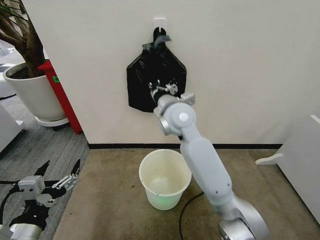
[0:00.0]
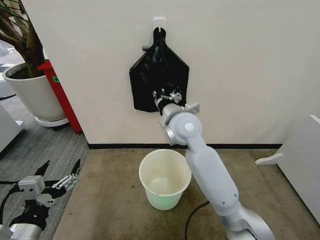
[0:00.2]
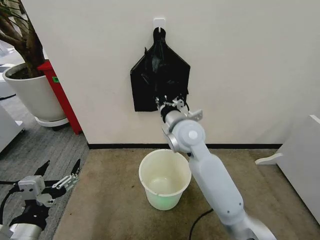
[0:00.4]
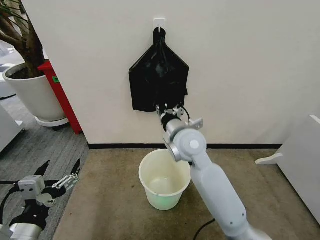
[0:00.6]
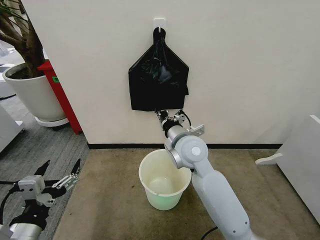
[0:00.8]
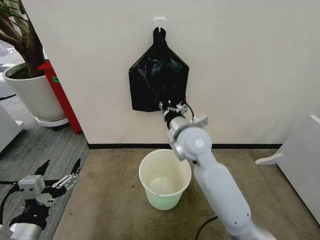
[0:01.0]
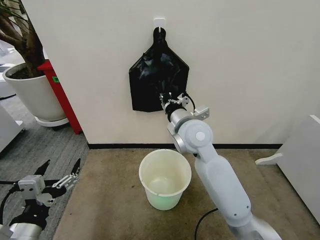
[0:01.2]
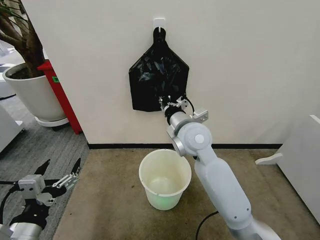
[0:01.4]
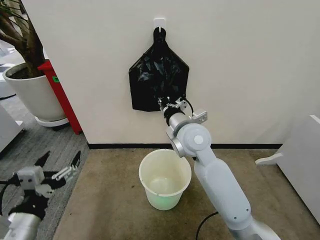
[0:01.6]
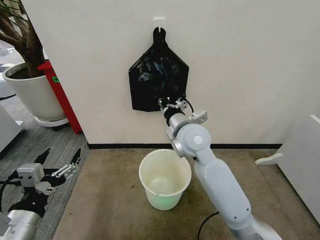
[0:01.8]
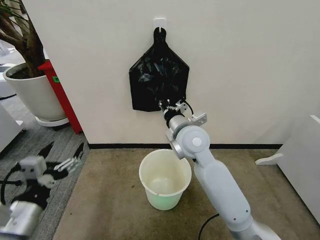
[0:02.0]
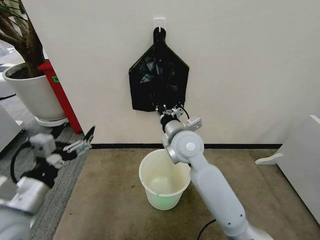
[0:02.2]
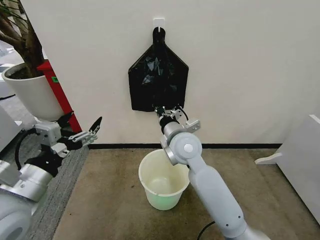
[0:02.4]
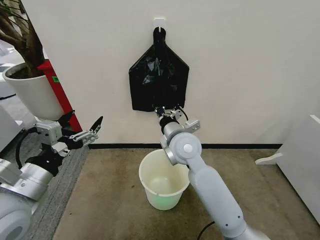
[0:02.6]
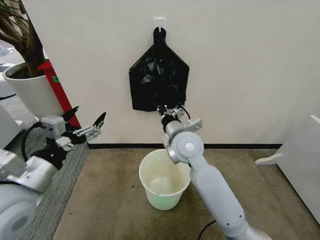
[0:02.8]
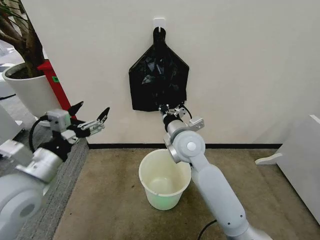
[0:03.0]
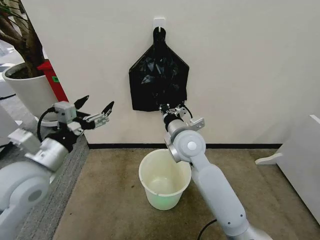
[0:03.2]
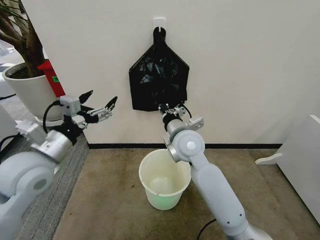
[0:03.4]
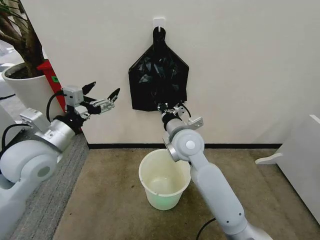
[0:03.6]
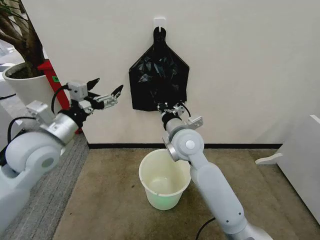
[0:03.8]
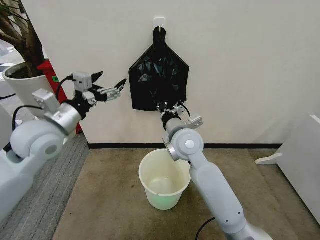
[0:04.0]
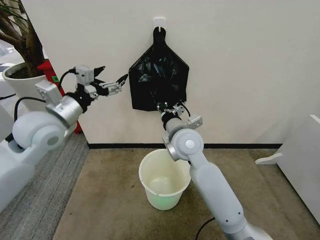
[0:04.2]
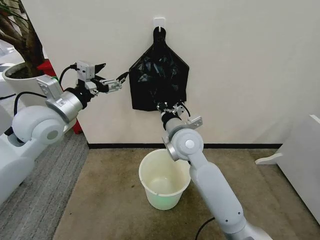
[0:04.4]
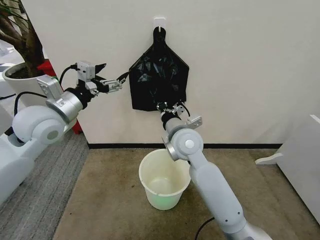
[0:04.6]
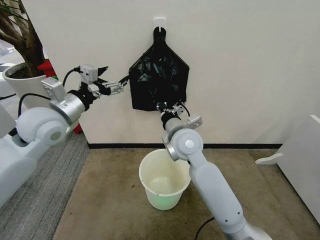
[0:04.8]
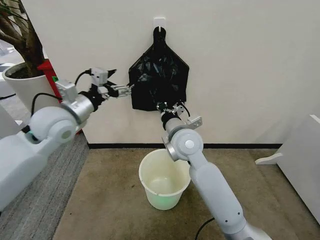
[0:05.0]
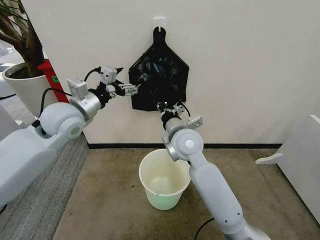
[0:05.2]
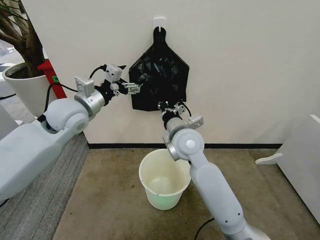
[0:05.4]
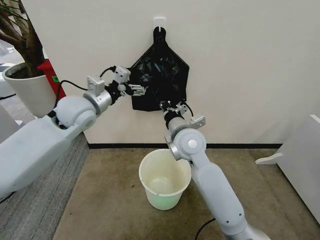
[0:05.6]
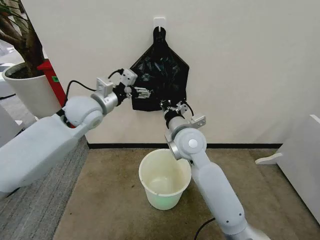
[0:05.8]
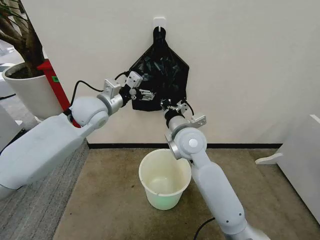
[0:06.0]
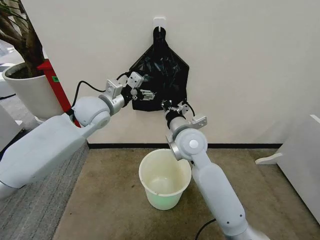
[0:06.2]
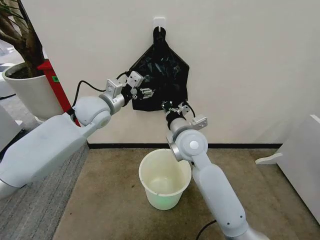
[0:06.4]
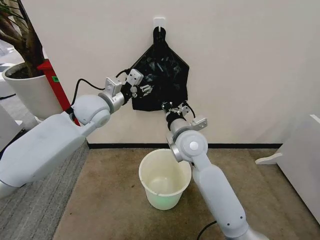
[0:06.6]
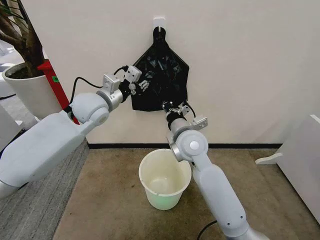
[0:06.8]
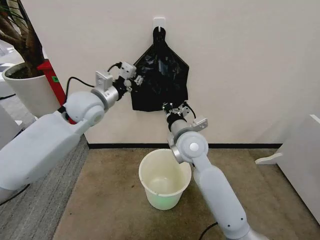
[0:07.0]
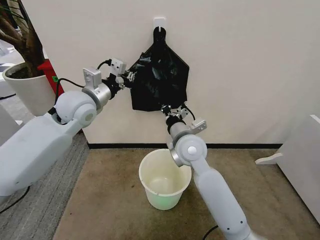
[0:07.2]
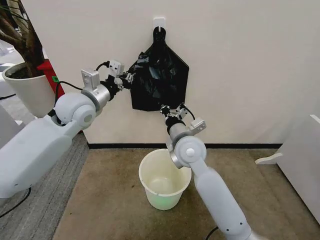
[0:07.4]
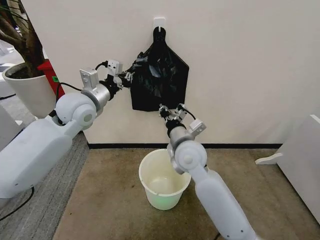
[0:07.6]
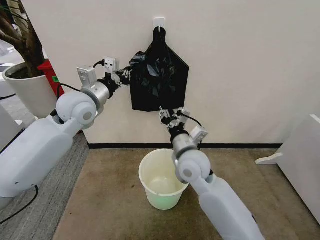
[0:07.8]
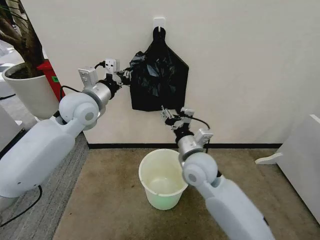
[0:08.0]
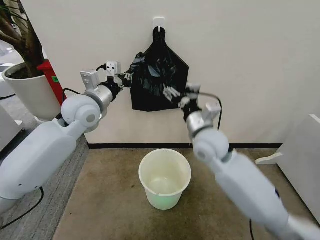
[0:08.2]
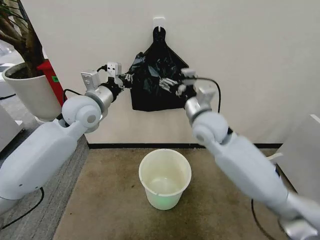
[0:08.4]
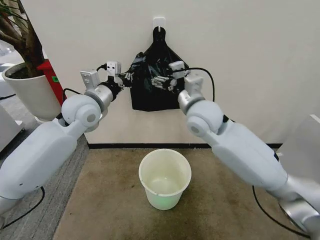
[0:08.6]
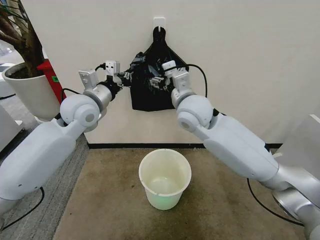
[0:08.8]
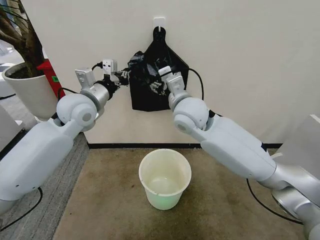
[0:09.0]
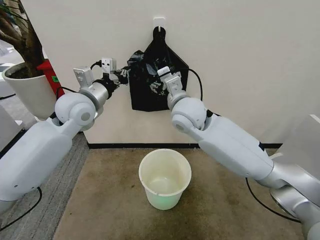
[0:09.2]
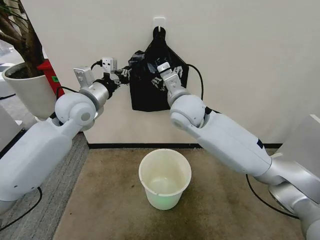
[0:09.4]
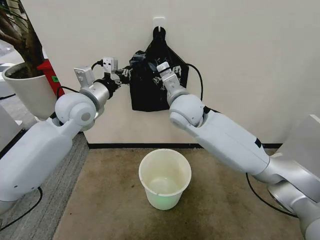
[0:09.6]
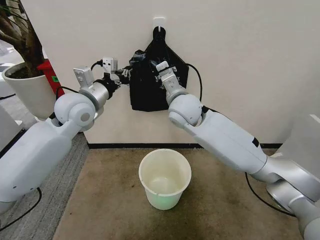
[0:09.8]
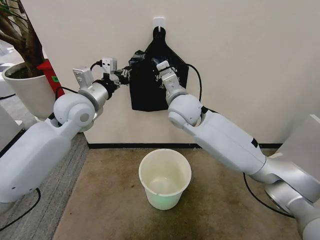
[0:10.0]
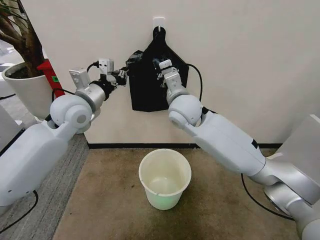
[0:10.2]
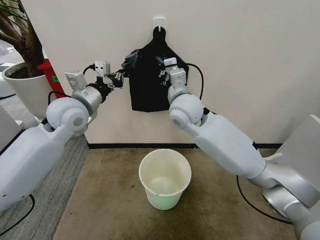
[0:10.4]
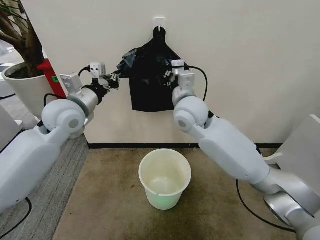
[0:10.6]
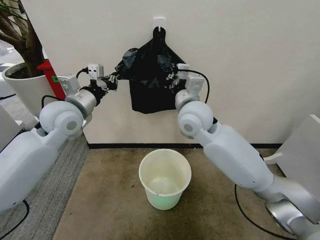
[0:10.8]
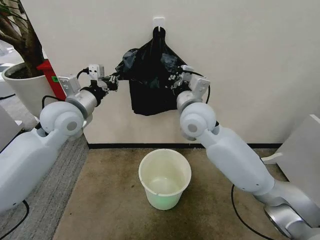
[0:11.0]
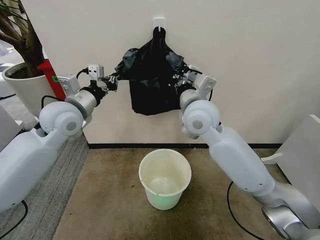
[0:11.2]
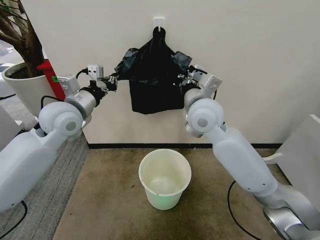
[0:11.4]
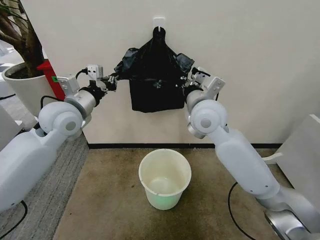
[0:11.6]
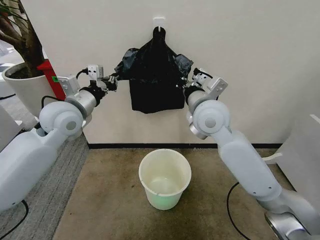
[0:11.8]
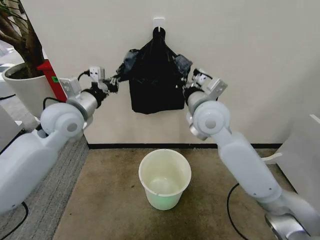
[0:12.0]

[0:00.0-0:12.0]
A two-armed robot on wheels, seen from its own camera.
Task of the whole recording: Place the garbage bag over the trash bin.
0:00.0 to 0:01.6: The right gripper shifts by about 5 cm.
0:01.6 to 0:03.0: The left gripper goes approximately 15 cm forward and upward.
0:03.0 to 0:04.4: The left gripper travels forward and upward by about 15 cm.
0:04.4 to 0:06.0: The left gripper goes about 10 cm forward and to the right.
0:06.0 to 0:07.6: The left gripper closes its fingers.
0:07.6 to 0:09.0: The right gripper is displaced upward and forward by roughly 10 cm, and opens.
0:09.0 to 0:10.4: The right gripper closes its fingers.
0:10.4 to 0:12.0: The right gripper heads to the right, covering roughly 5 cm.

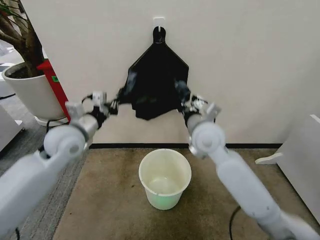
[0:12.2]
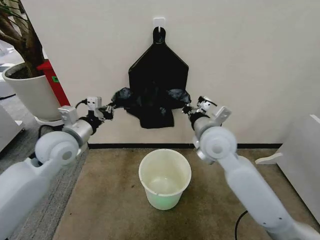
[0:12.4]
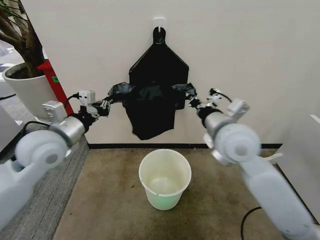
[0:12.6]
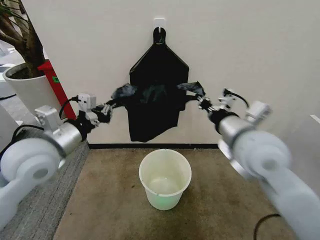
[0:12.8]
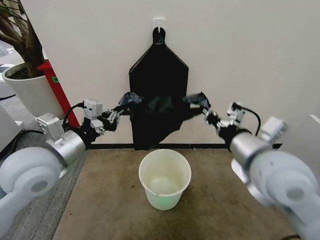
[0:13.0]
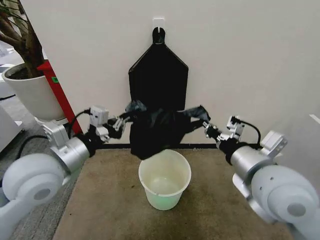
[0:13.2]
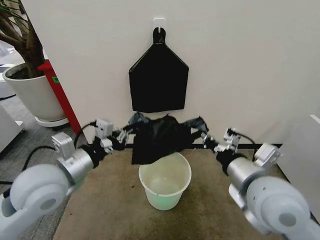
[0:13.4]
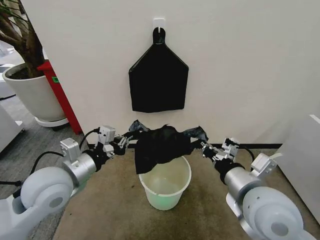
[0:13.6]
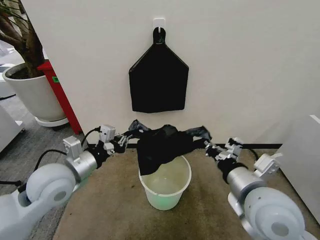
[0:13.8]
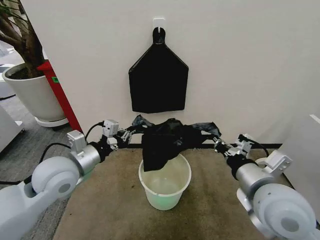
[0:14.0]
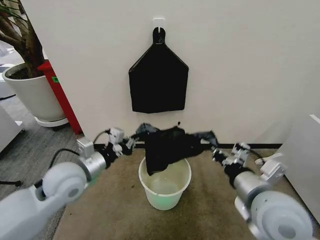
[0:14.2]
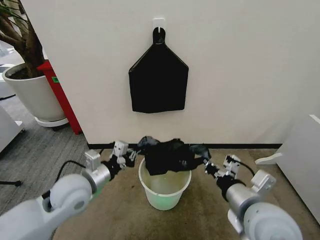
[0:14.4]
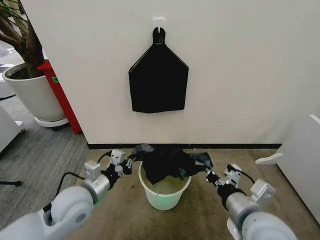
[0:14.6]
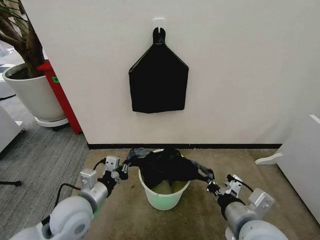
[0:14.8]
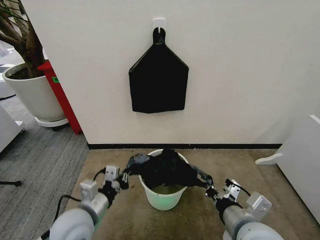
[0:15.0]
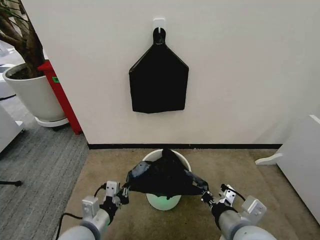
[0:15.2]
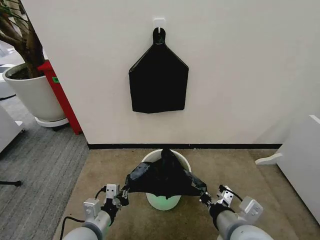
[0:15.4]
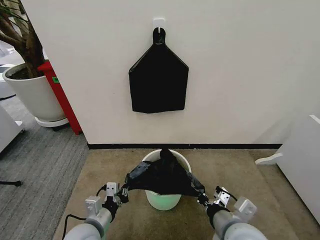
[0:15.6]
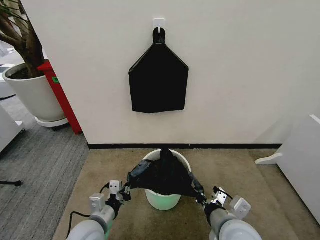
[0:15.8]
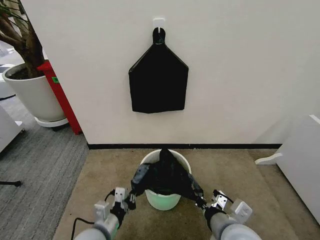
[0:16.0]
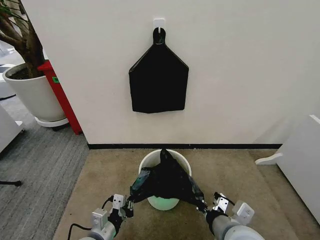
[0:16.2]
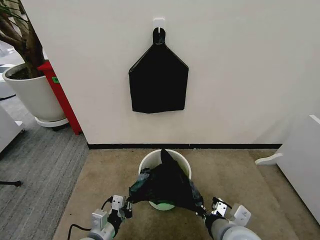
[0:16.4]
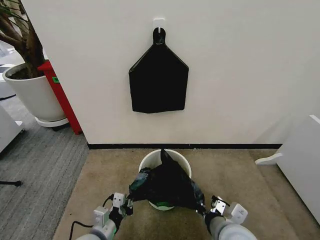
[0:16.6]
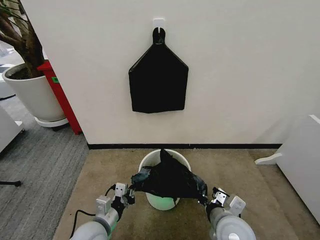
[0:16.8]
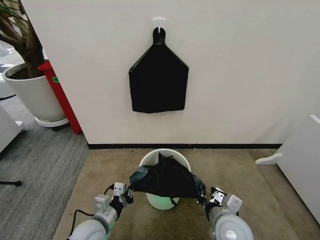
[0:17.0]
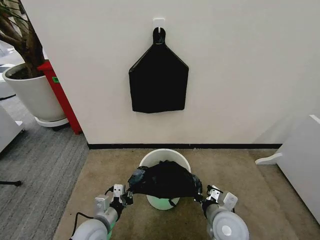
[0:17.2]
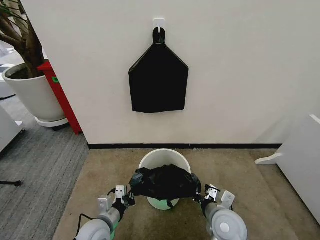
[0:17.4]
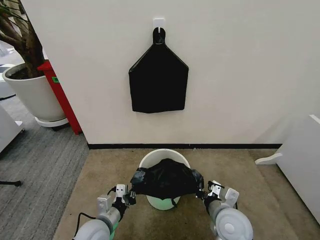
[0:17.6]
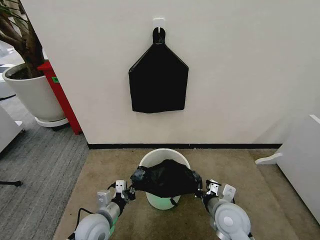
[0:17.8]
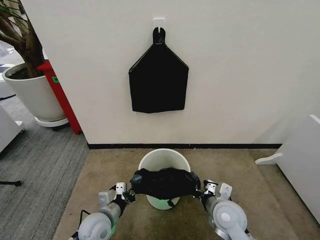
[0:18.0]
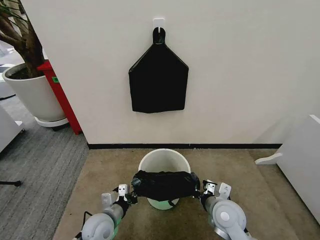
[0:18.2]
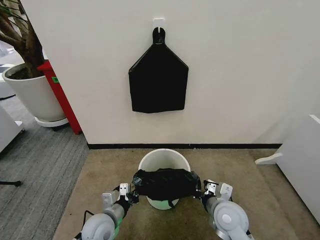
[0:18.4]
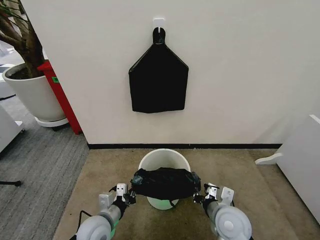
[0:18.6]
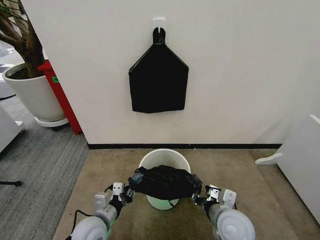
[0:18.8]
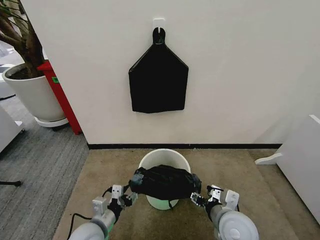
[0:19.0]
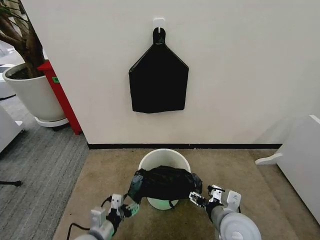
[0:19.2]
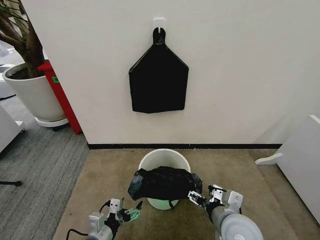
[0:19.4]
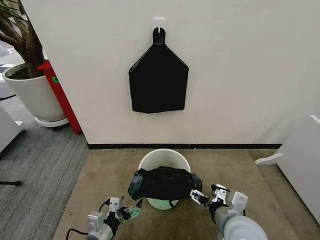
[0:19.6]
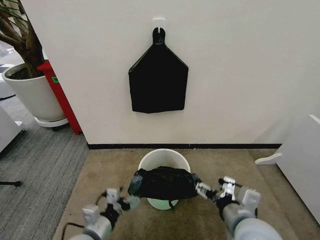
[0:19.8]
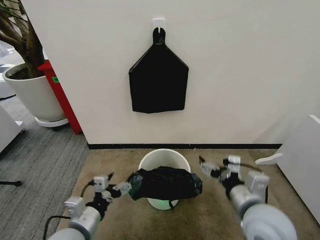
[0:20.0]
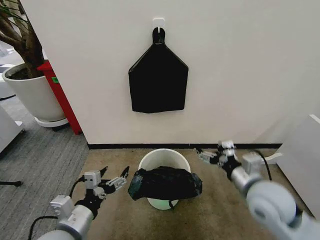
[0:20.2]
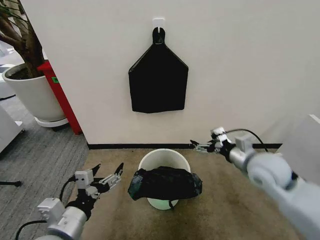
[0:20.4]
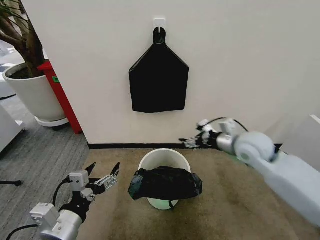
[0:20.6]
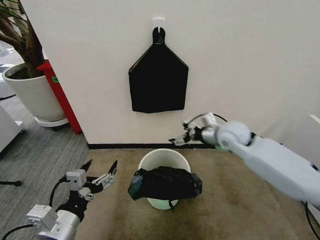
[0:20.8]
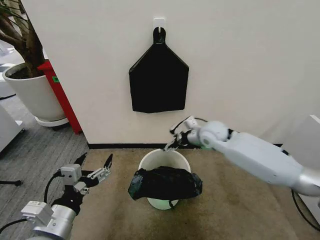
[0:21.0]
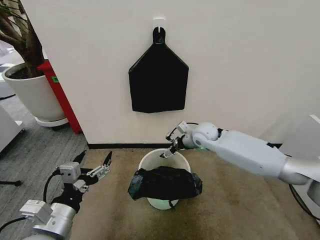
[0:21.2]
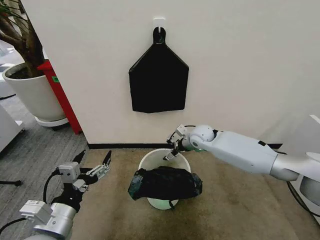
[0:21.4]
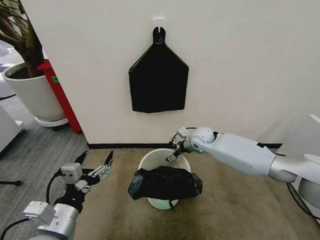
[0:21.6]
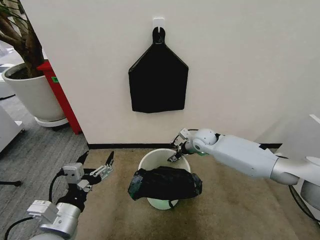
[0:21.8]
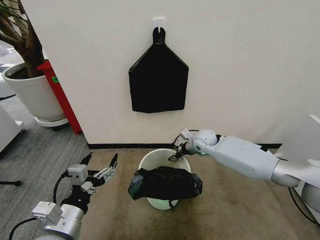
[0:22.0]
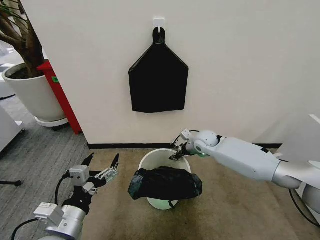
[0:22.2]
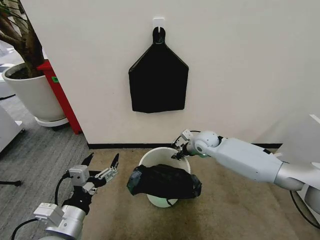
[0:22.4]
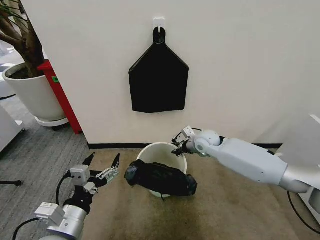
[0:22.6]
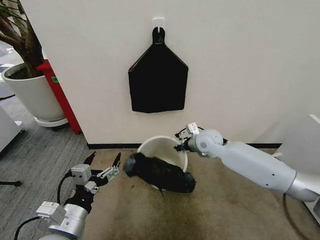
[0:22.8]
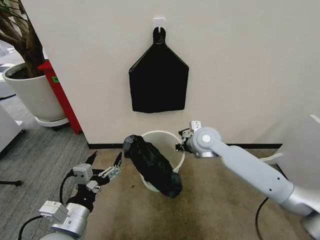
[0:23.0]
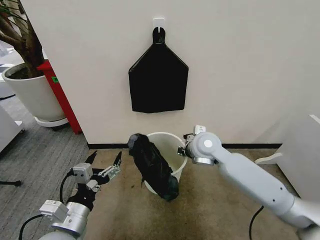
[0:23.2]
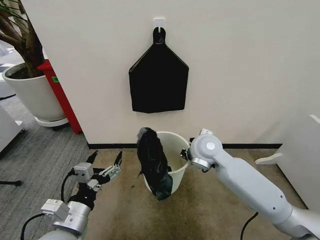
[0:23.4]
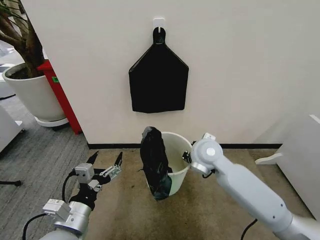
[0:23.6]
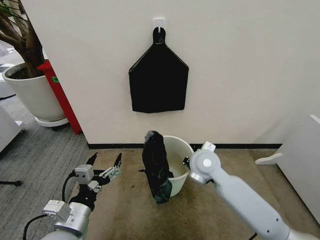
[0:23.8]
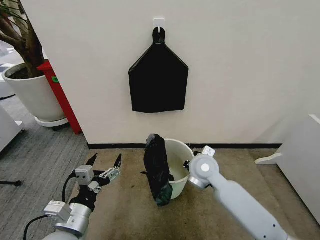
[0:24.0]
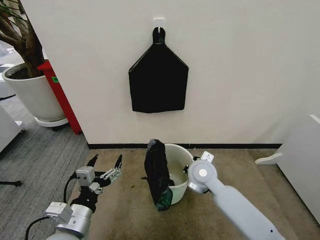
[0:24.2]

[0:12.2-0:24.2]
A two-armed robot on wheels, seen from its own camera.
Task of the whole recording: Place the garbage bag over the trash bin.
0:12.2 to 0:13.8: The right gripper goes approximately 20 cm backward and to the right, while the left gripper heads backward, covering about 10 cm.
0:13.8 to 0:15.2: The right gripper shifts some 10 cm downward and backward, while the left gripper heads downward and backward, covering about 20 cm.
0:15.2 to 0:16.6: Both grippers move downward, roughly 5 cm.
0:16.6 to 0:18.2: The right gripper heads forward and downward, covering roughly 10 cm, while the left gripper heads forward, covering roughly 5 cm.
0:18.2 to 0:19.8: The right gripper goes some 15 cm upward and backward, and opens up. Meanwhile the left gripper is displaced backward and upward by approximately 10 cm, and opens.
0:19.8 to 0:21.2: The right gripper goes about 35 cm forward. Meanwhile the left gripper moves upward, roughly 15 cm.
0:21.2 to 0:22.6: The right gripper closes.
0:22.6 to 0:24.2: The right gripper moves backward, approximately 15 cm.
